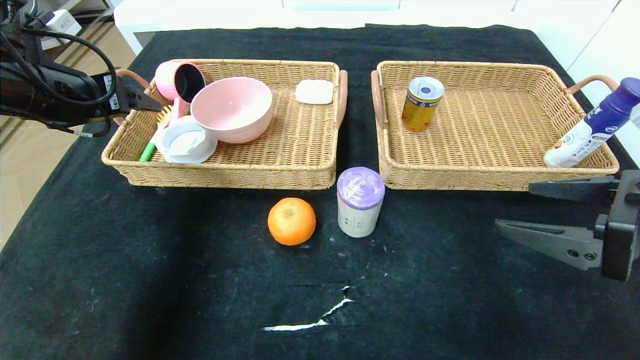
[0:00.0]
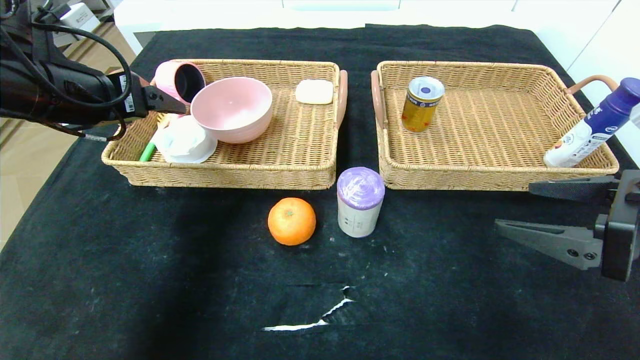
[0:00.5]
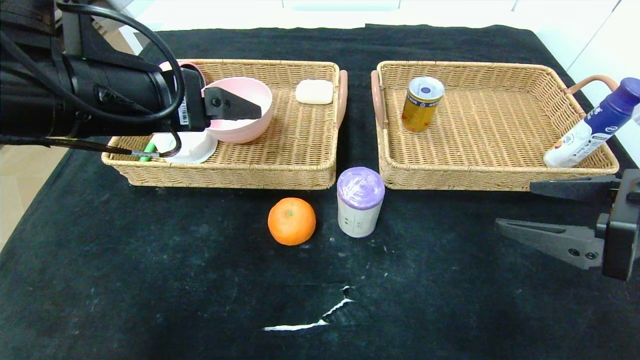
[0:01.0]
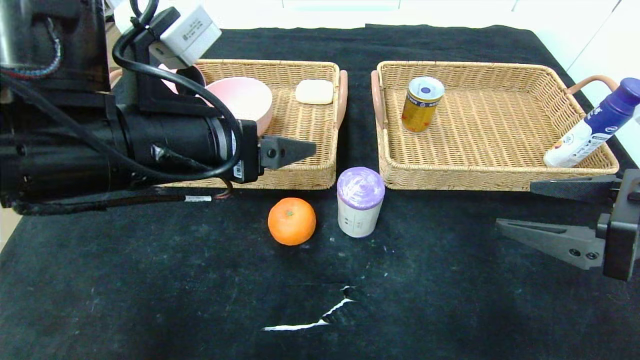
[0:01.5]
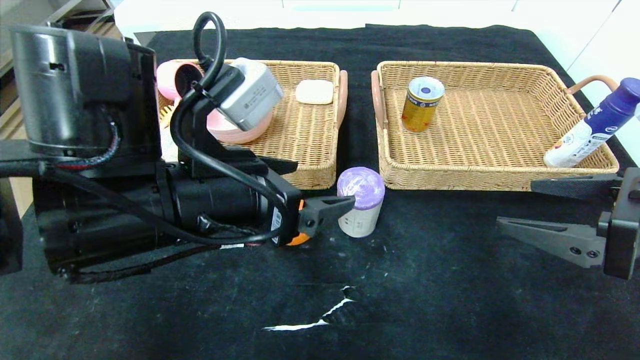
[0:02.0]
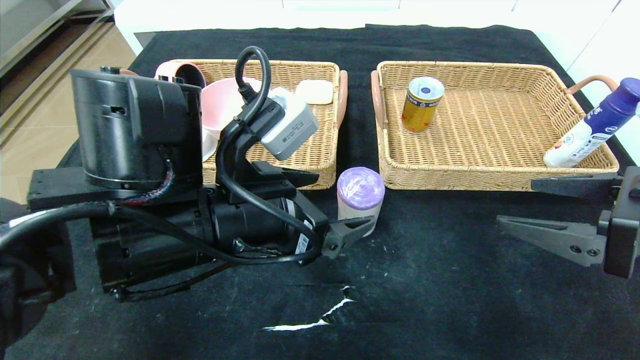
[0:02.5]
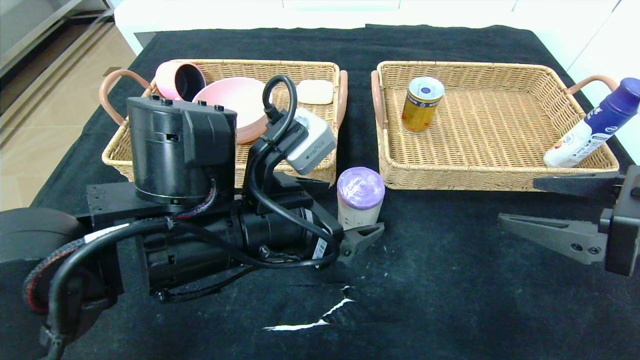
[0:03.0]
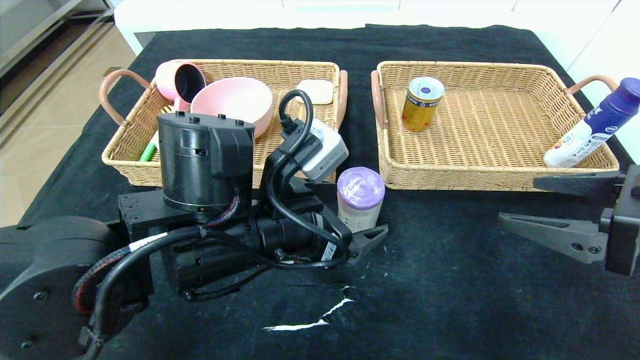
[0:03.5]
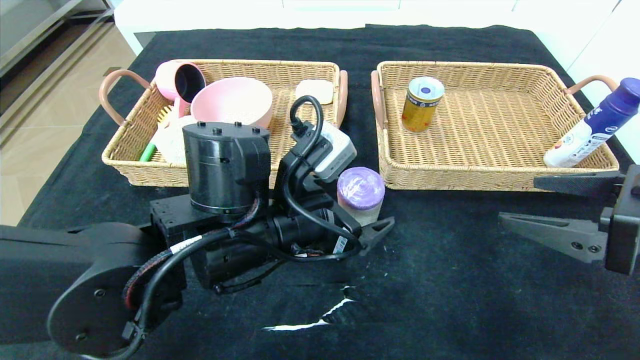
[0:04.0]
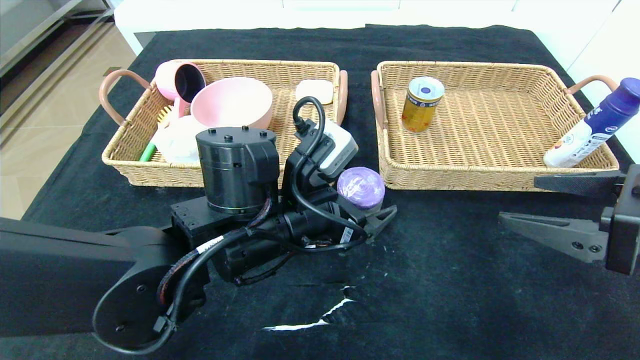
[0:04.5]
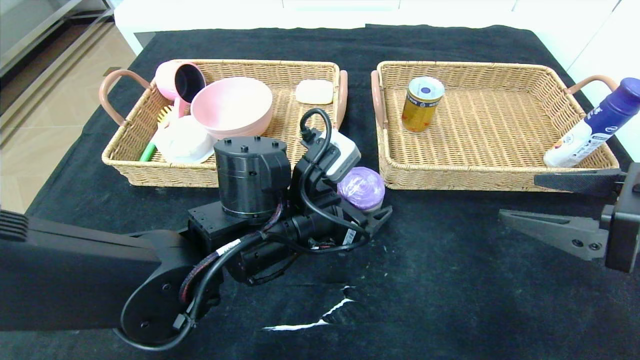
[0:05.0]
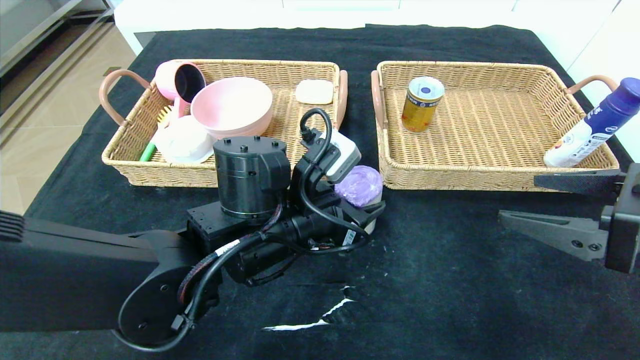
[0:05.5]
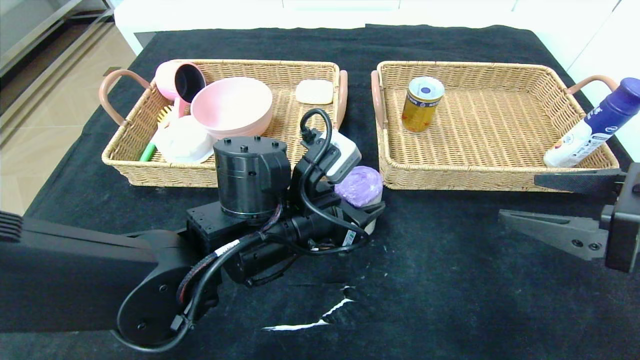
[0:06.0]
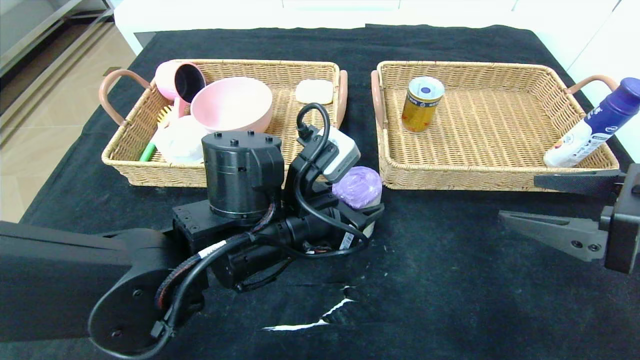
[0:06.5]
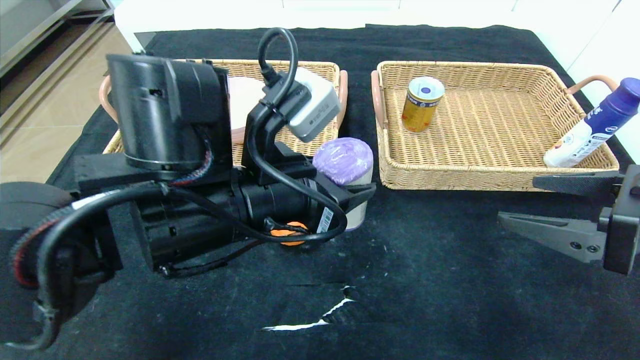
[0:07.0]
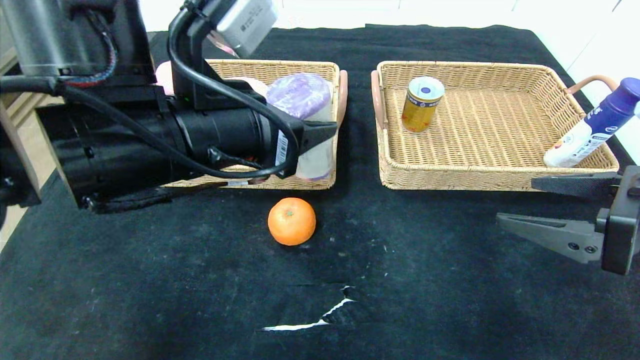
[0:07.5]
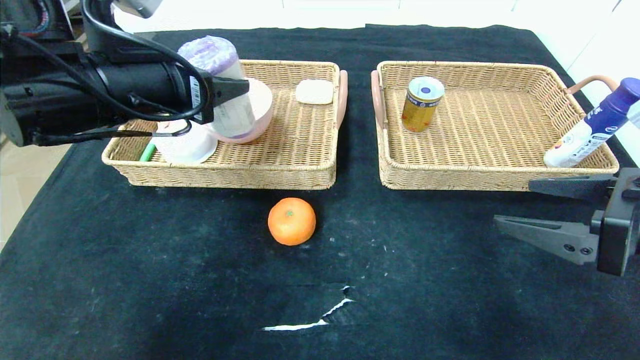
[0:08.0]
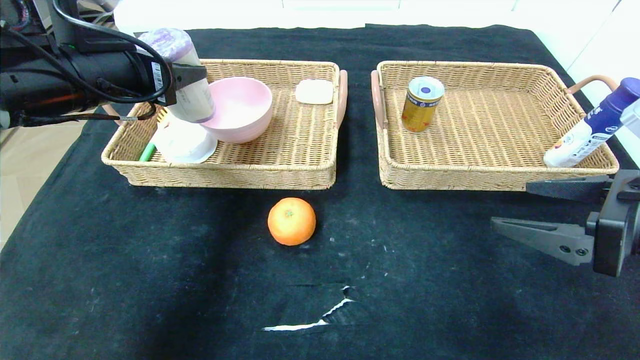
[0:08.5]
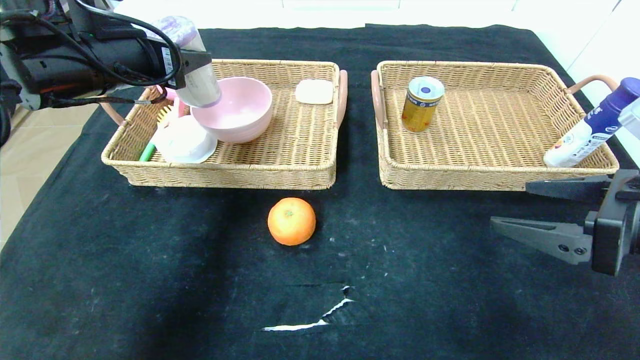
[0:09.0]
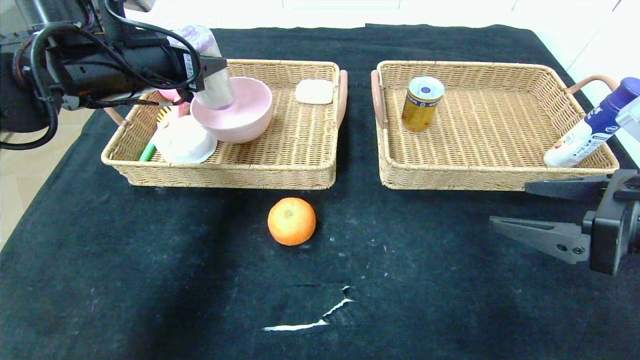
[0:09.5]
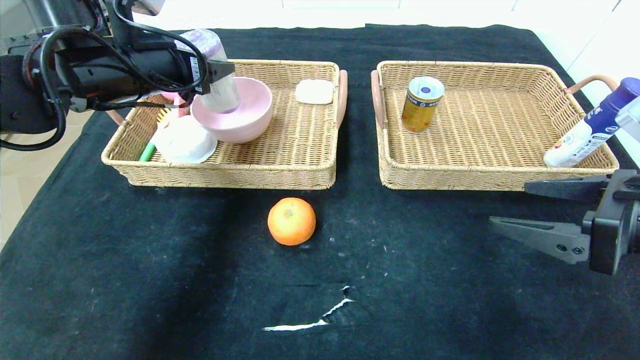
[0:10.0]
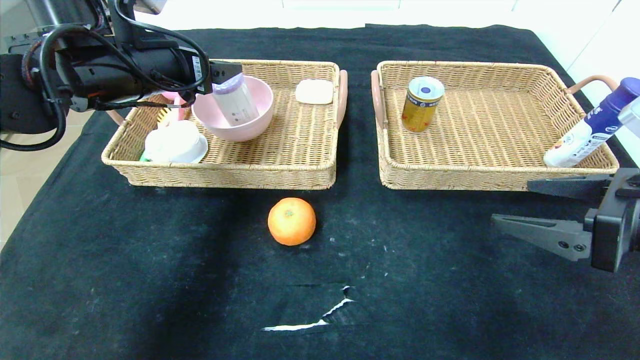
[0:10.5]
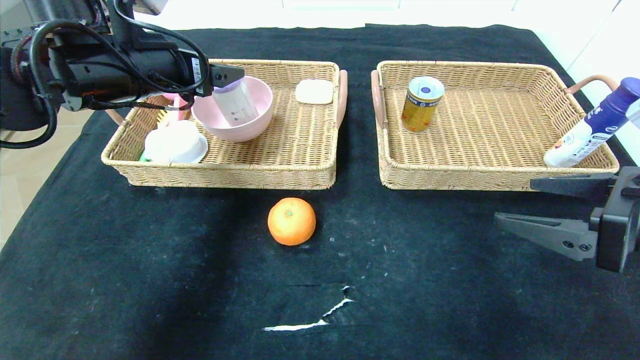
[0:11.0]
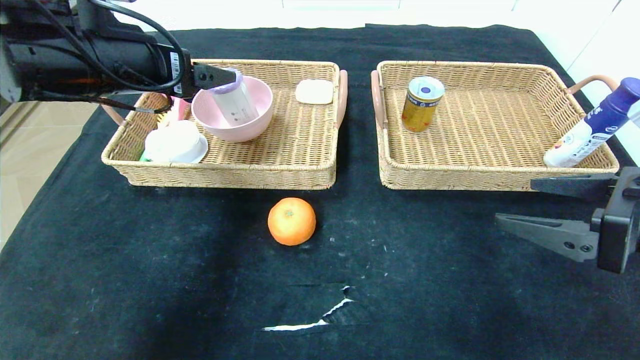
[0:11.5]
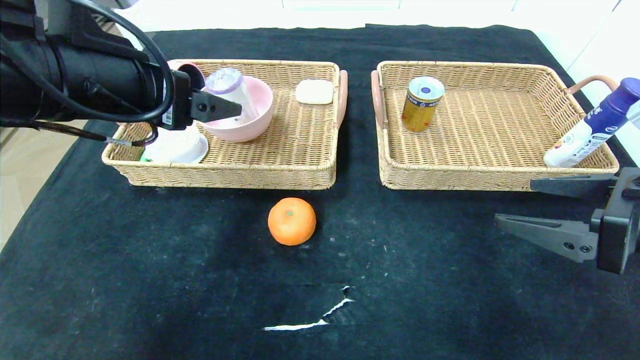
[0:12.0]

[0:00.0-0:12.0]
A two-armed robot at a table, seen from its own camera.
Step, 0:00.0 to 0:10.5: Grasp the purple garbage bag and put it in the left basket.
0:00.0 to 0:02.0: The left gripper heads to the right and backward, covering some 25 cm.
0:02.0 to 0:04.0: The left gripper goes roughly 5 cm downward.
0:04.0 to 0:06.0: The left gripper closes its fingers.
0:06.0 to 0:08.0: The left gripper shifts approximately 20 cm to the left and upward.
0:08.0 to 0:10.0: The left gripper shifts about 10 cm forward.
0:10.0 to 0:12.0: The left gripper heads backward, covering approximately 15 cm.

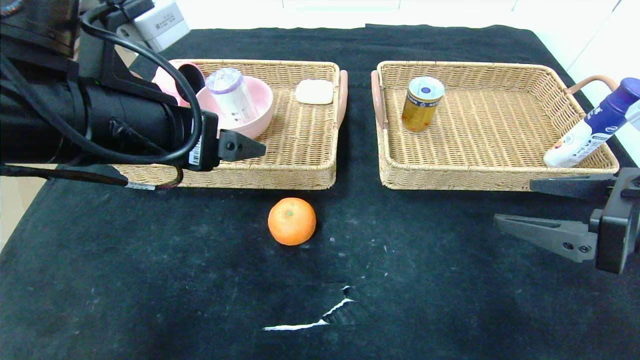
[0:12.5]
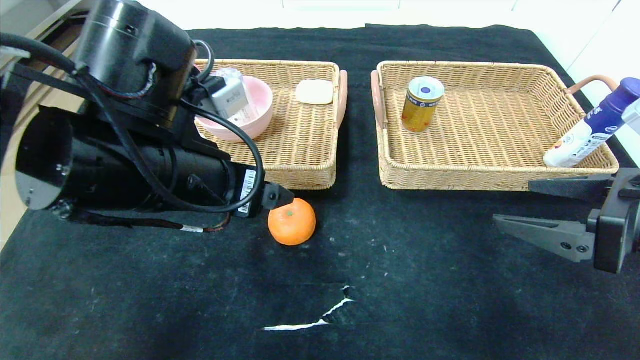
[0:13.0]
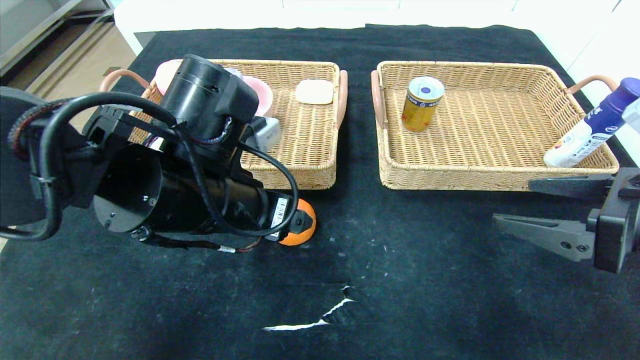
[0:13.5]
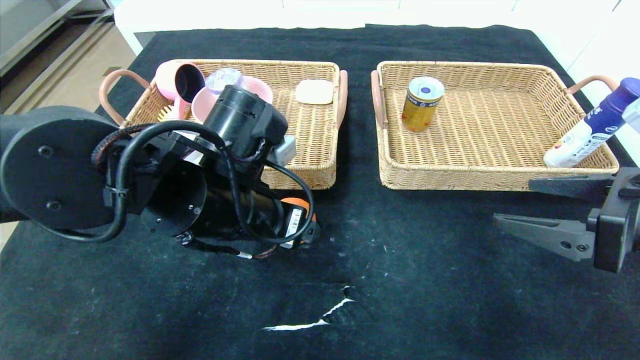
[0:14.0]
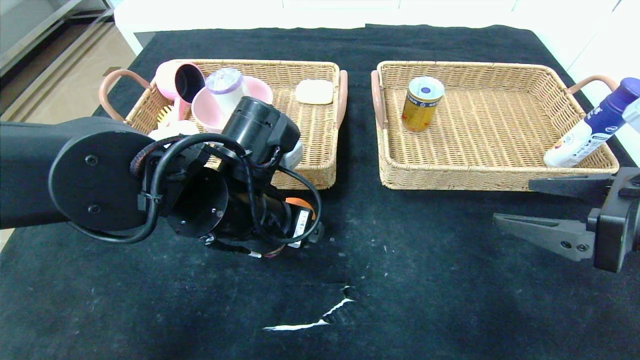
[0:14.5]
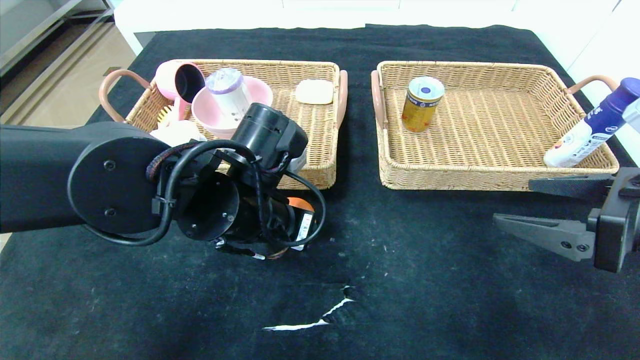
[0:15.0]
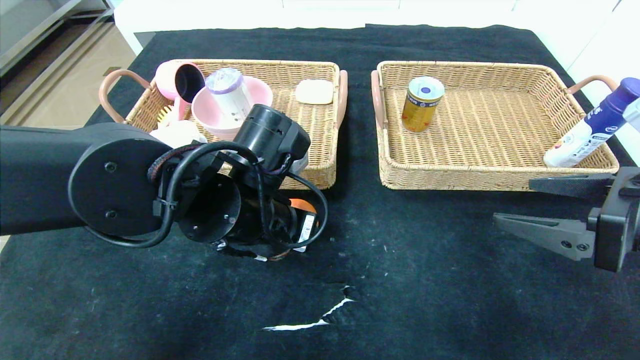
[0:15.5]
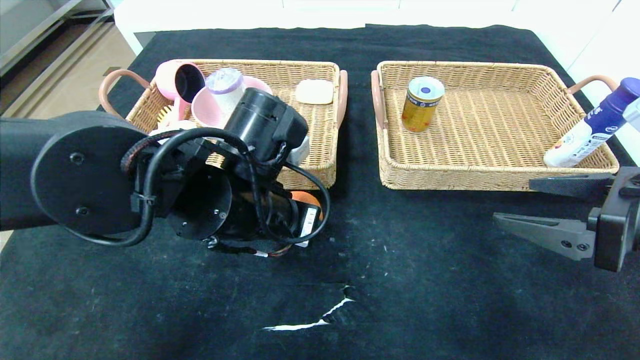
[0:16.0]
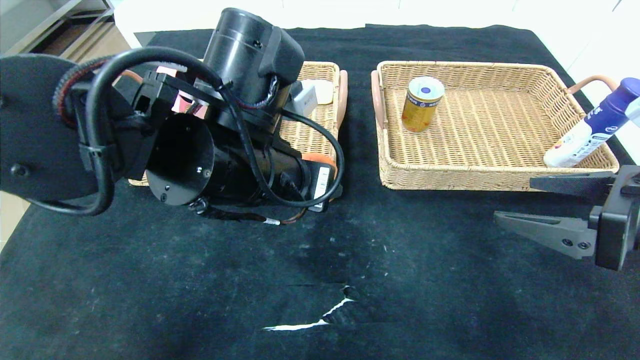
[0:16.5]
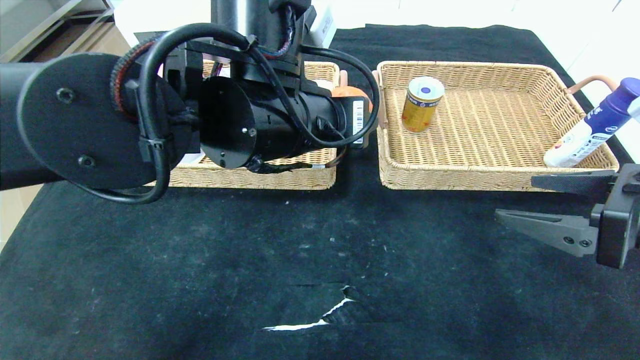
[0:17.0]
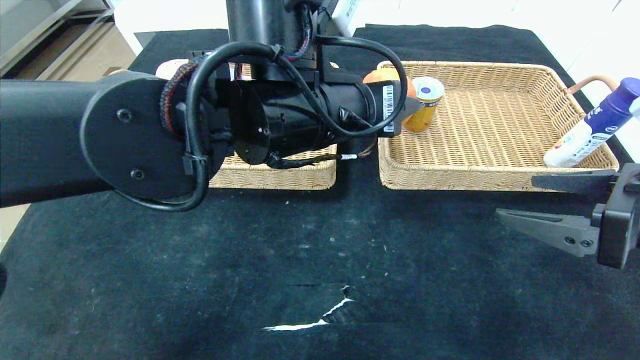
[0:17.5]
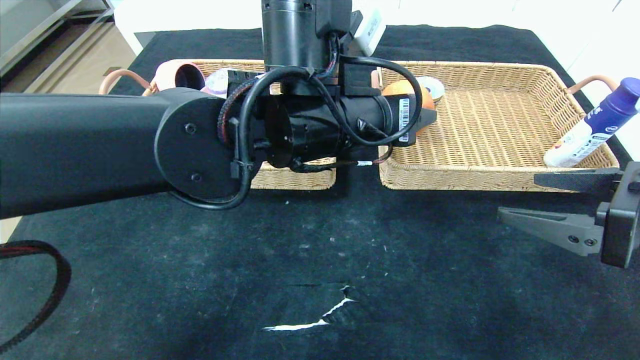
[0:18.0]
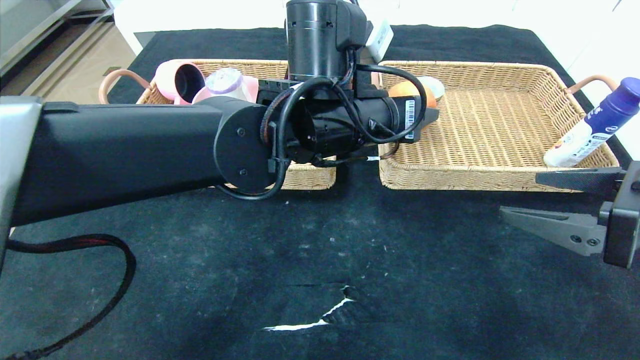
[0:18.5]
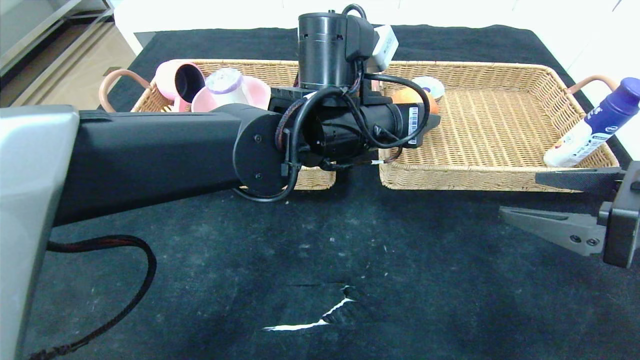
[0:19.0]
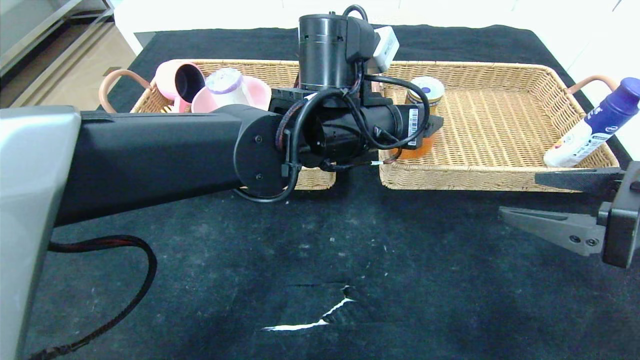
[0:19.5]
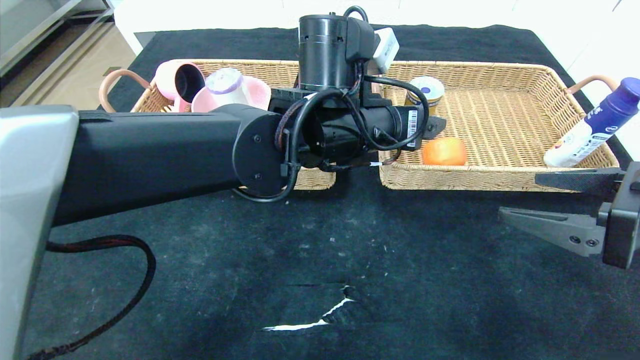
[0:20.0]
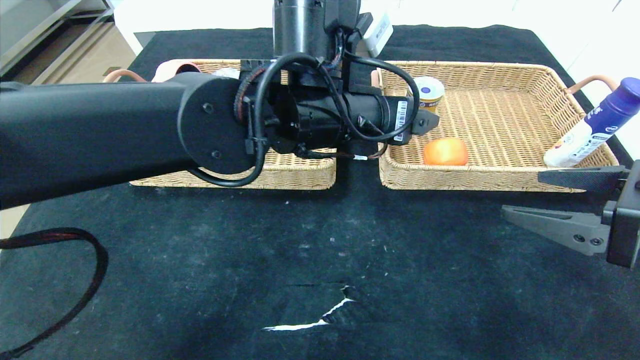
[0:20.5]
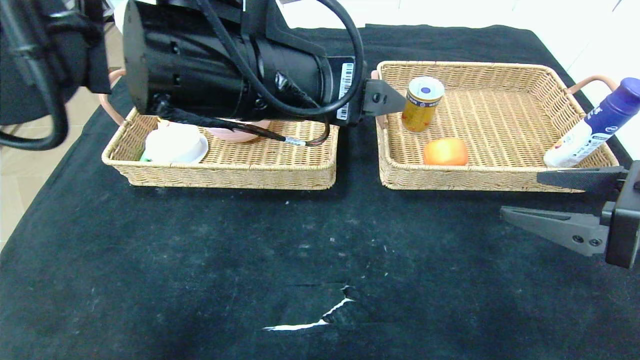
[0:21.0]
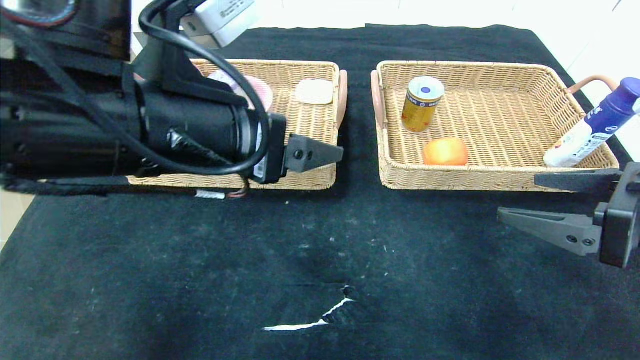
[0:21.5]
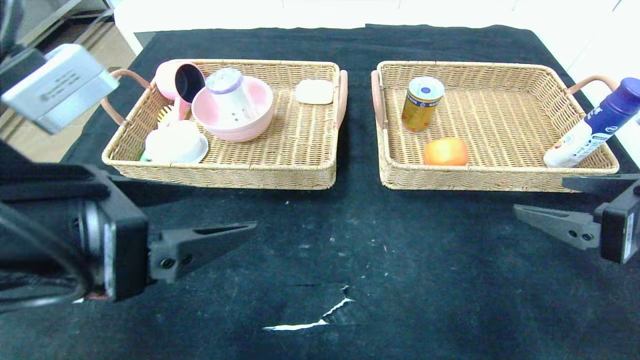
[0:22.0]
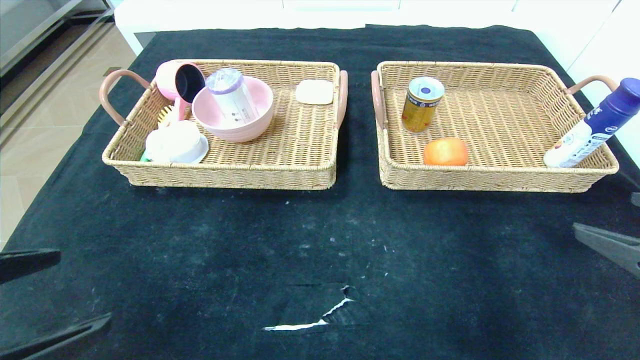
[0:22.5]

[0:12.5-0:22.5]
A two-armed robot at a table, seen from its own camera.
0:12.5 to 0:14.5: The left gripper travels downward and to the right by approximately 10 cm.
0:14.5 to 0:16.5: The left gripper is displaced upward by approximately 5 cm, and closes.
0:16.5 to 0:18.5: The left gripper moves to the right and forward, roughly 10 cm.
0:18.5 to 0:20.5: The grippers make only small movements.
0:20.5 to 0:22.5: The left gripper is displaced to the left and backward by approximately 35 cm, while the right gripper moves backward, approximately 5 cm.
